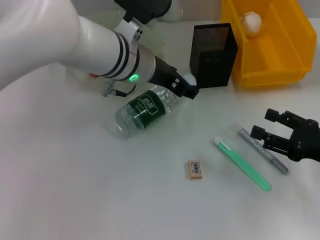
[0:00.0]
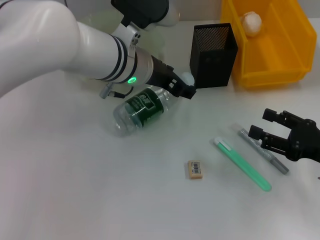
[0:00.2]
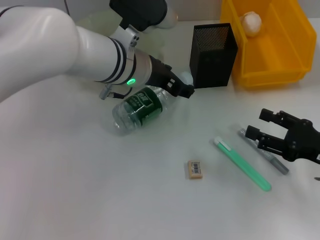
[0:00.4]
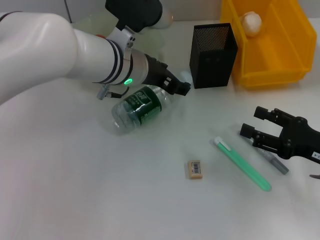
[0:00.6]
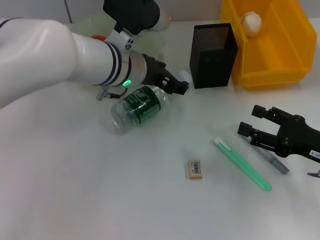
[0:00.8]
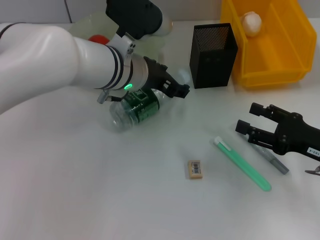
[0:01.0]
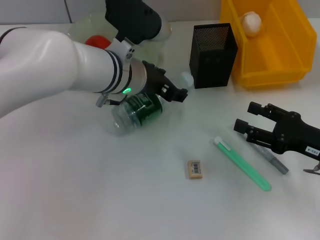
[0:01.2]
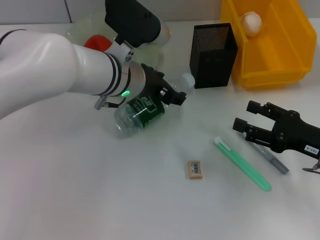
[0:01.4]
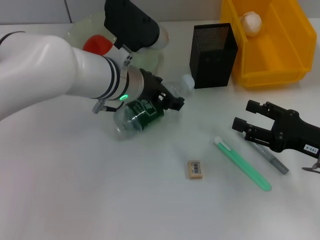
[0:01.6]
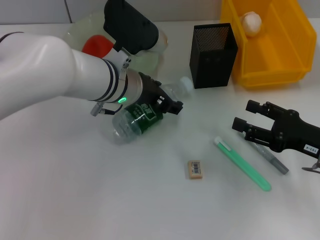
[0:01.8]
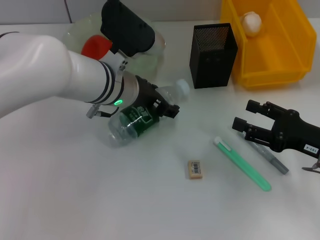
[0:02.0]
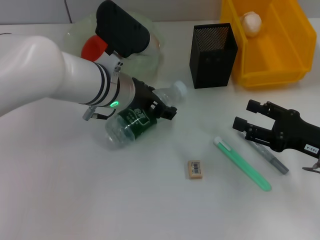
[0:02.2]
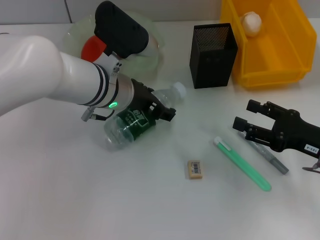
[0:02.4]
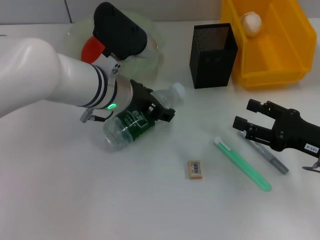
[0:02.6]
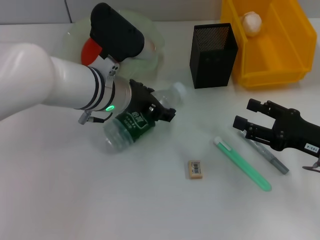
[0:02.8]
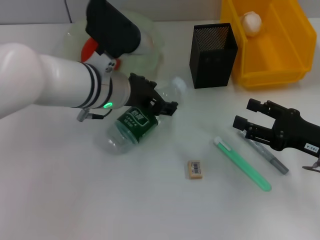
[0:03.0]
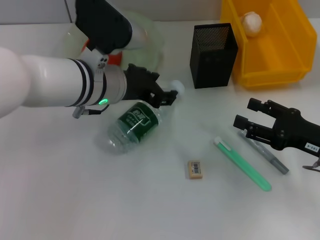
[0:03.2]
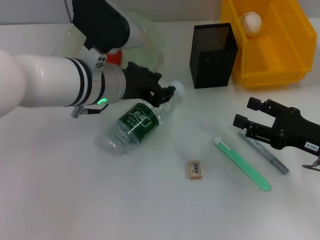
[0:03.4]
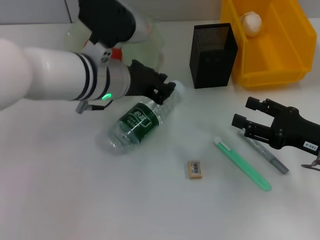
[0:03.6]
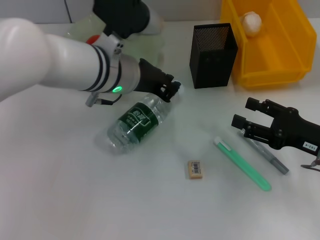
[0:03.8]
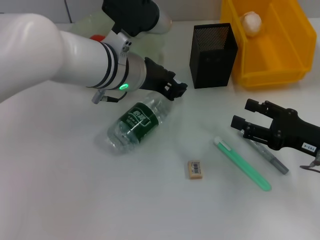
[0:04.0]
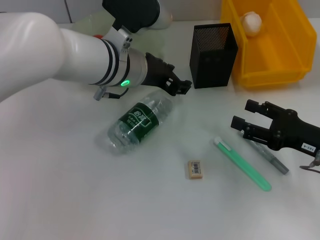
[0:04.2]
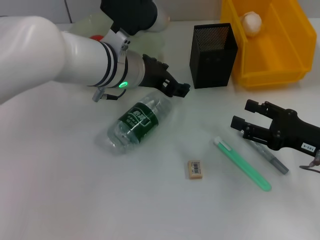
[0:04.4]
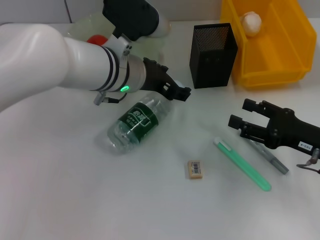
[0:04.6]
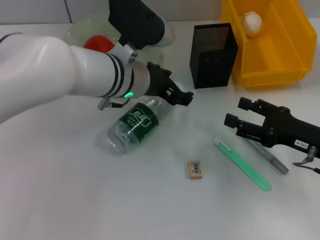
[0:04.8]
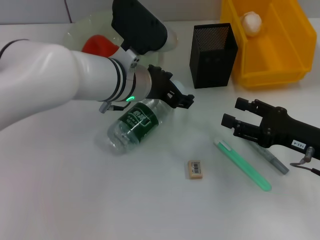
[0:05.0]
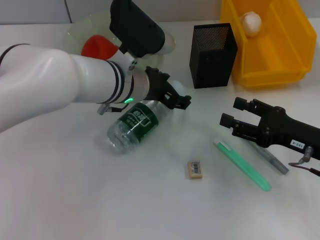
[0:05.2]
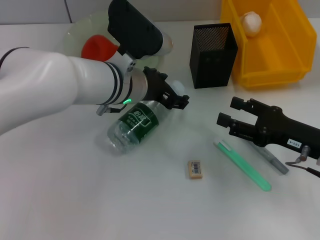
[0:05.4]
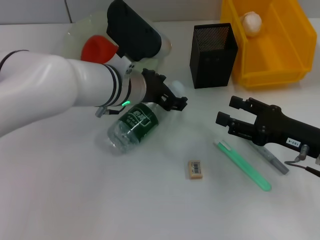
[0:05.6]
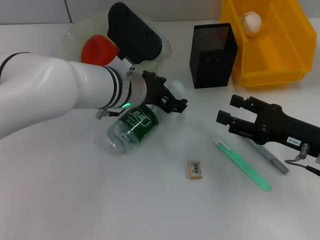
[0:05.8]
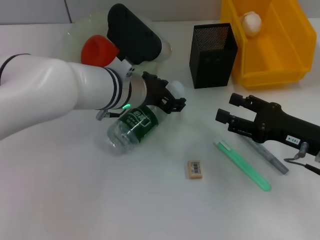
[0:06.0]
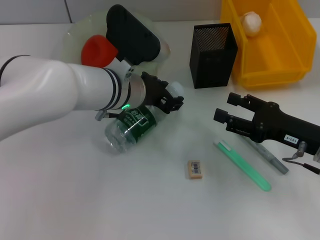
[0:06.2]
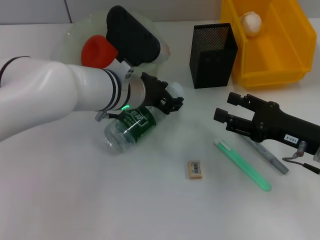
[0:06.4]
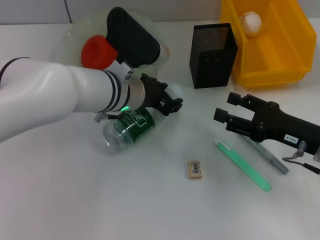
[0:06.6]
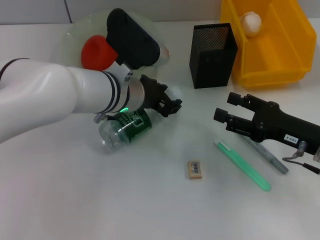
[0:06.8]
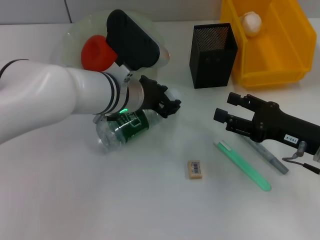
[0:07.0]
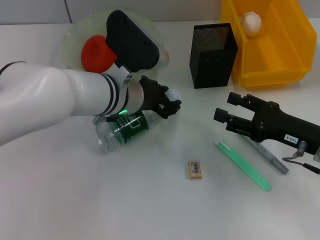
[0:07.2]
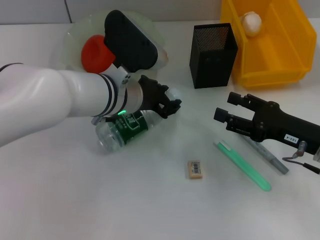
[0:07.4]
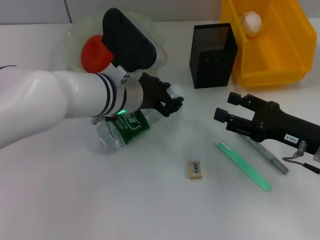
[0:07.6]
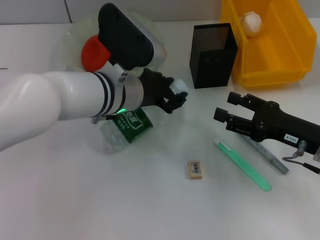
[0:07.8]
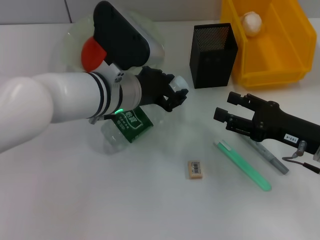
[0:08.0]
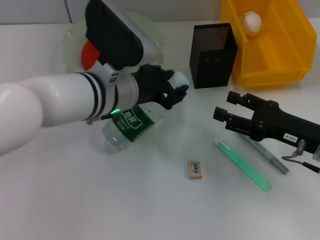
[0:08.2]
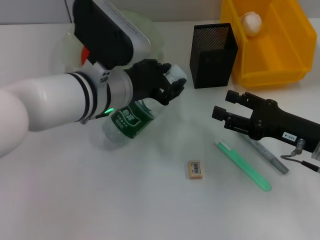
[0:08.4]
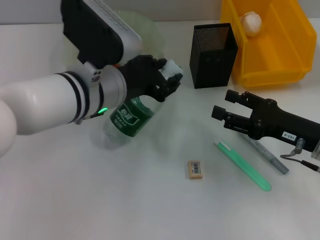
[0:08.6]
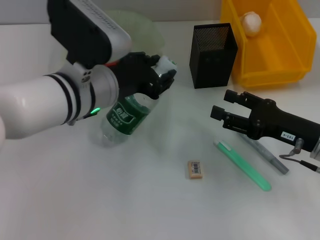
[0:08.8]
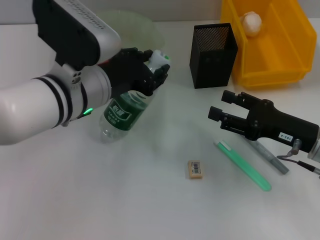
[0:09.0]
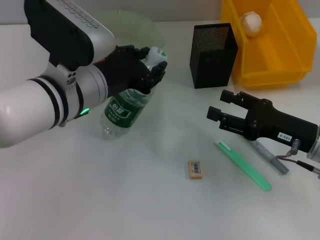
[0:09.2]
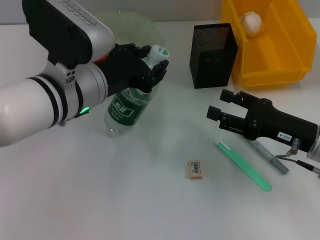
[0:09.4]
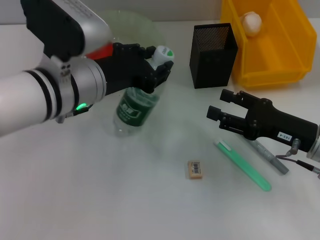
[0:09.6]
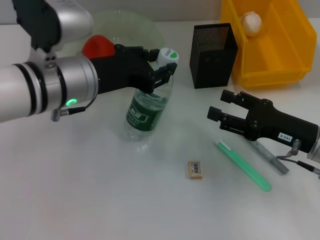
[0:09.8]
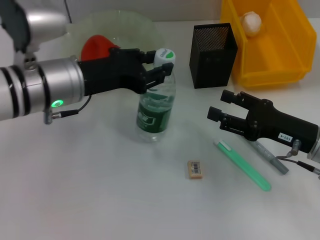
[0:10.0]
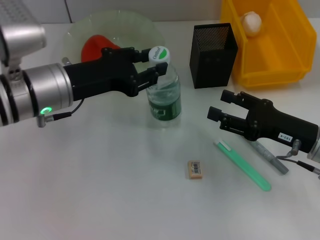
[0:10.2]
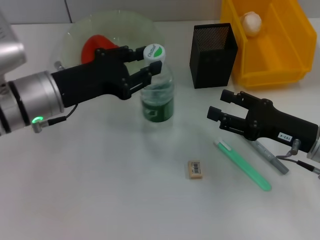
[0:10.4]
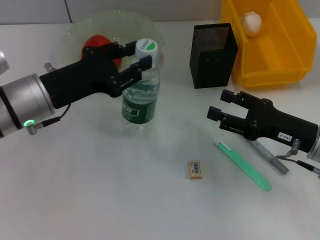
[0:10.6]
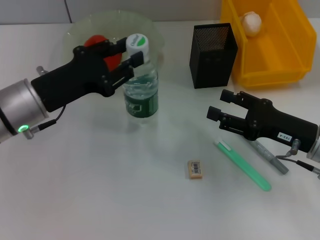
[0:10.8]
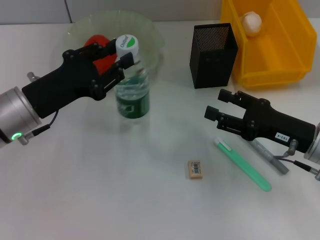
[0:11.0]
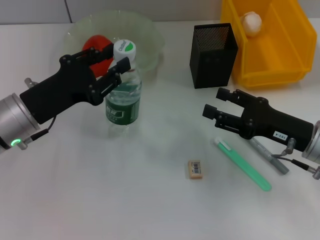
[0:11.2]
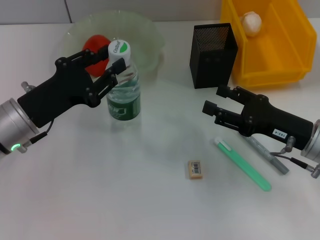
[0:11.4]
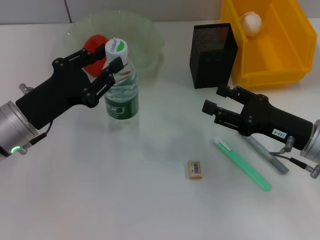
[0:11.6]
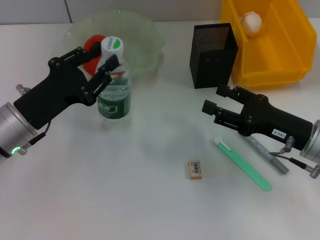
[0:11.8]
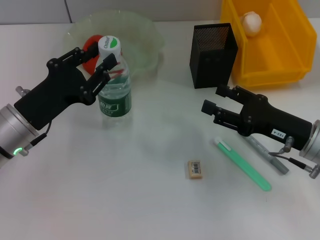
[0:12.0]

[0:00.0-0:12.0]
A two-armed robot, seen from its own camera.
Step, 0:00.0 to 0:06.4: Grab the water bottle with the left hand.
0:00.0 to 0:03.0: The grippers make only small movements.
0:03.0 to 0:04.4: The left gripper closes, then reopens.
0:04.4 to 0:06.0: The grippers stay close to where they were, moving slightly.
0:06.0 to 0:07.6: The left gripper closes up.
0:07.6 to 0:09.0: The left gripper changes place by approximately 5 cm.
0:09.0 to 0:10.4: The left gripper shifts approximately 5 cm to the left.
0:10.4 to 0:12.0: The left gripper travels downward by about 5 cm.

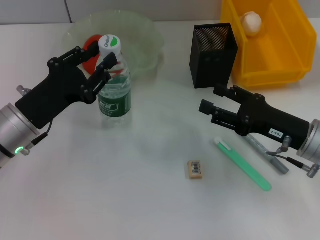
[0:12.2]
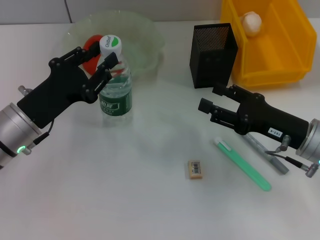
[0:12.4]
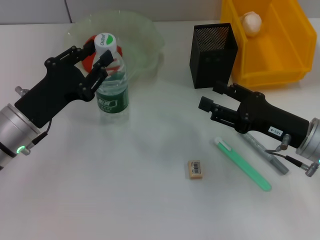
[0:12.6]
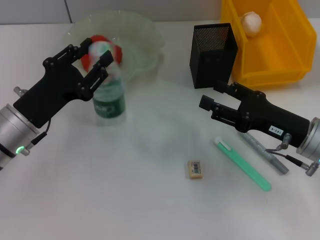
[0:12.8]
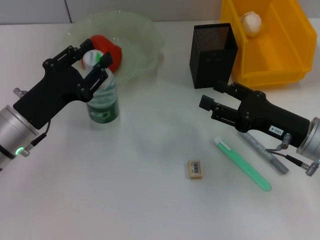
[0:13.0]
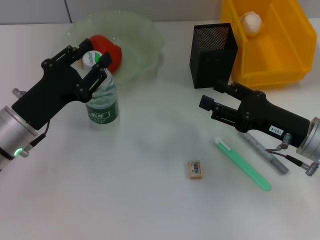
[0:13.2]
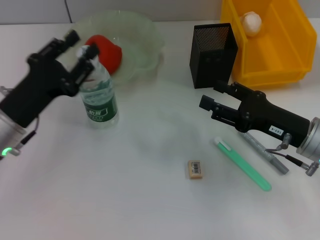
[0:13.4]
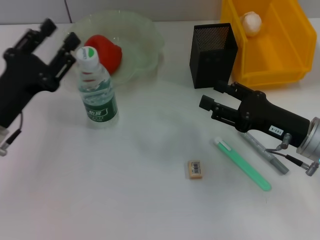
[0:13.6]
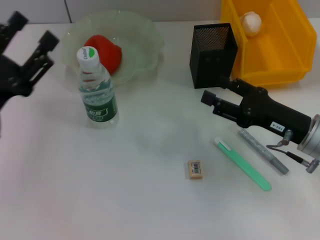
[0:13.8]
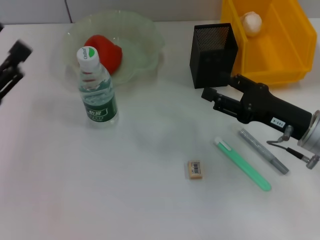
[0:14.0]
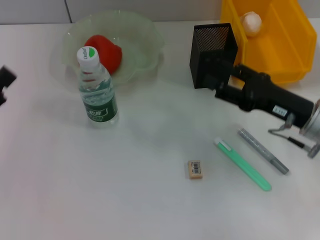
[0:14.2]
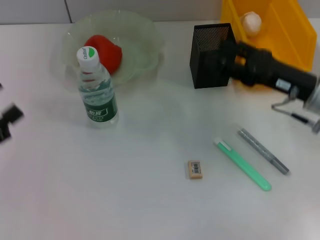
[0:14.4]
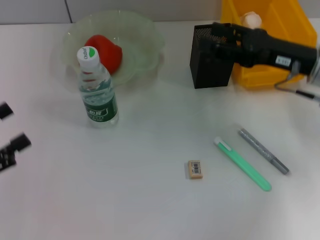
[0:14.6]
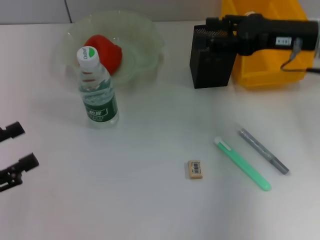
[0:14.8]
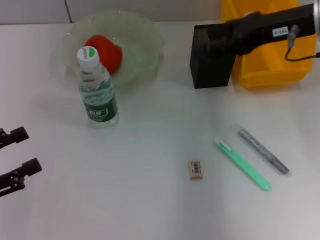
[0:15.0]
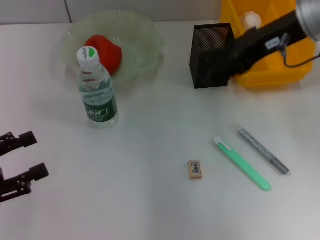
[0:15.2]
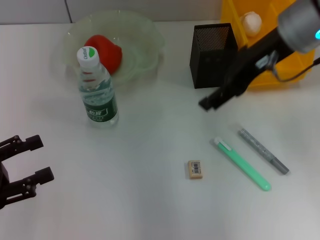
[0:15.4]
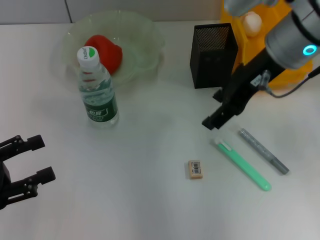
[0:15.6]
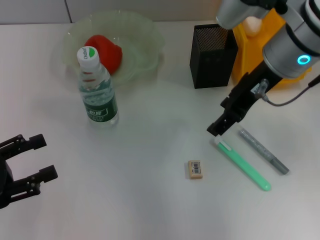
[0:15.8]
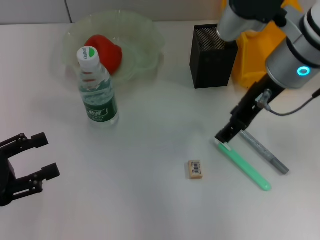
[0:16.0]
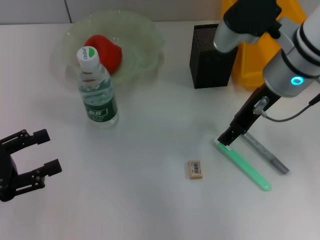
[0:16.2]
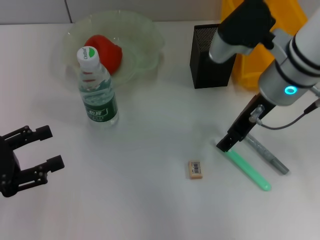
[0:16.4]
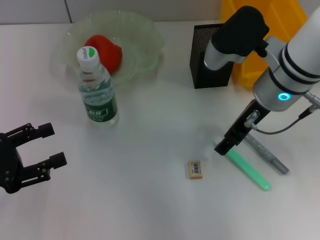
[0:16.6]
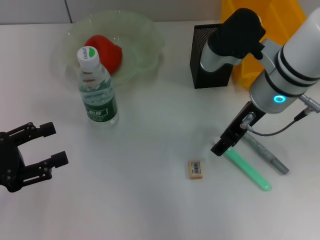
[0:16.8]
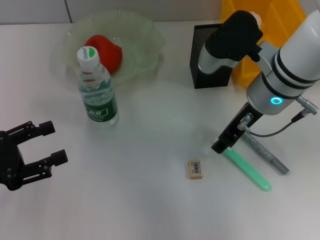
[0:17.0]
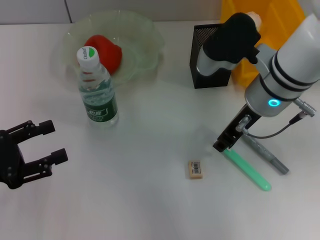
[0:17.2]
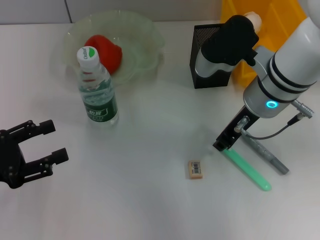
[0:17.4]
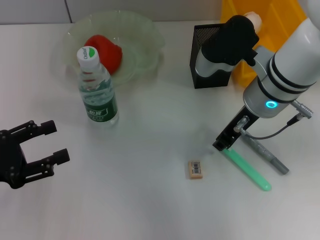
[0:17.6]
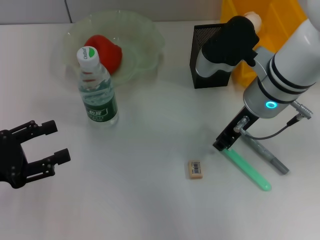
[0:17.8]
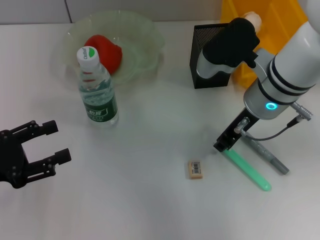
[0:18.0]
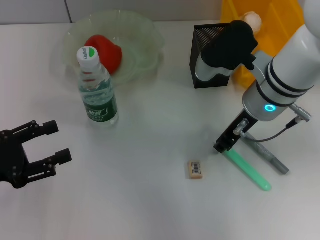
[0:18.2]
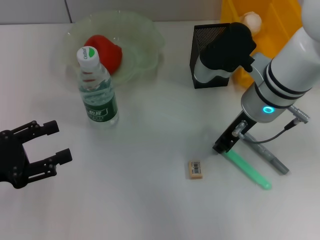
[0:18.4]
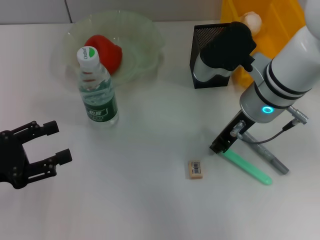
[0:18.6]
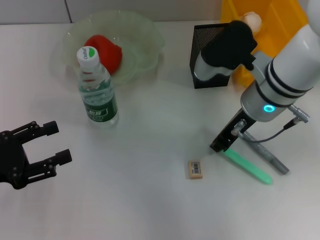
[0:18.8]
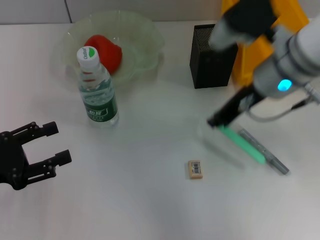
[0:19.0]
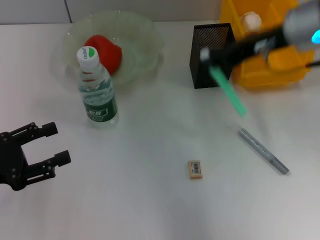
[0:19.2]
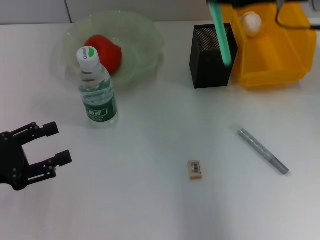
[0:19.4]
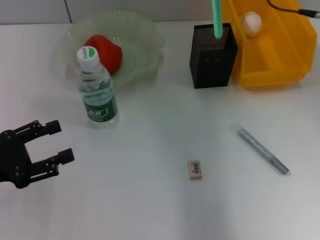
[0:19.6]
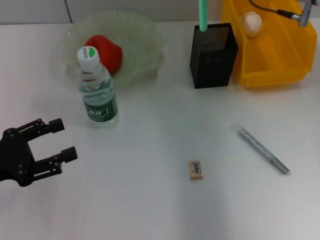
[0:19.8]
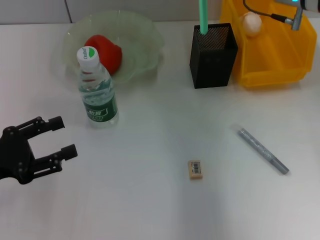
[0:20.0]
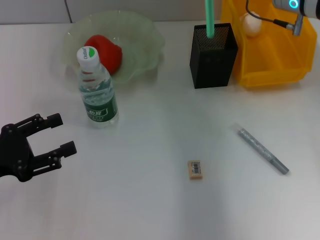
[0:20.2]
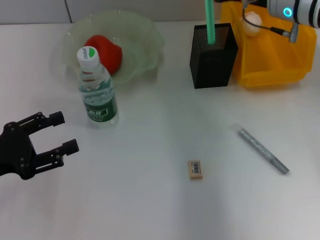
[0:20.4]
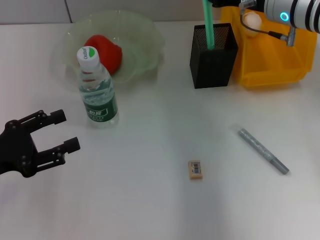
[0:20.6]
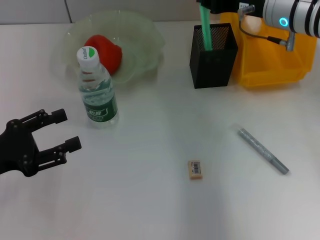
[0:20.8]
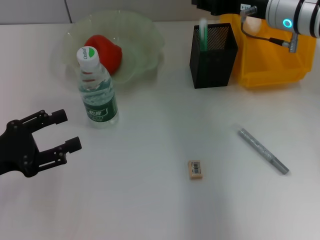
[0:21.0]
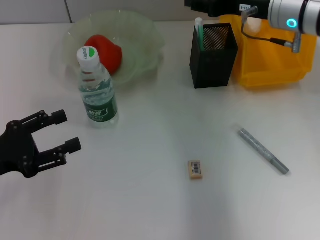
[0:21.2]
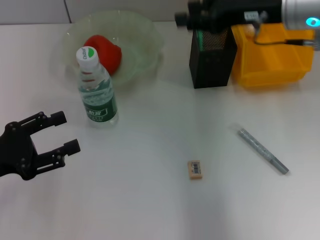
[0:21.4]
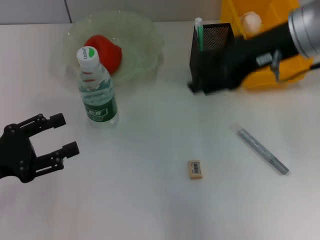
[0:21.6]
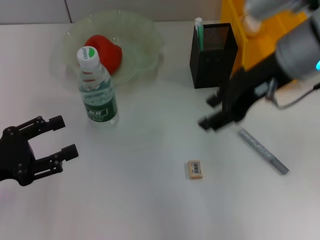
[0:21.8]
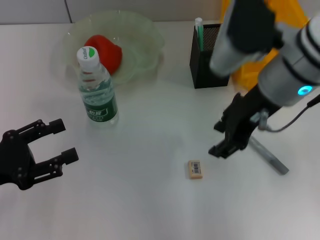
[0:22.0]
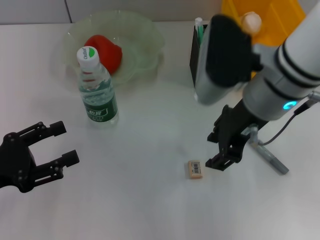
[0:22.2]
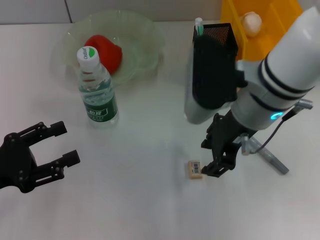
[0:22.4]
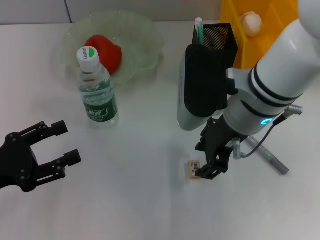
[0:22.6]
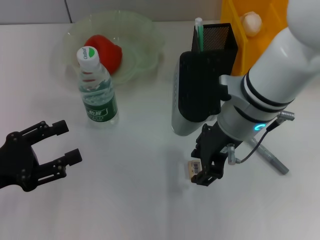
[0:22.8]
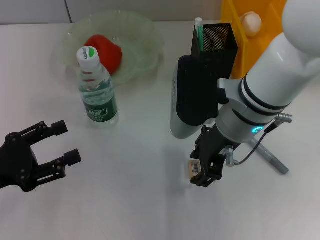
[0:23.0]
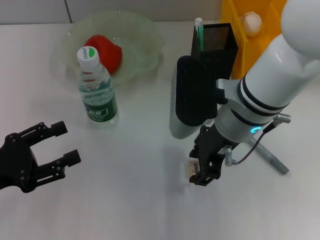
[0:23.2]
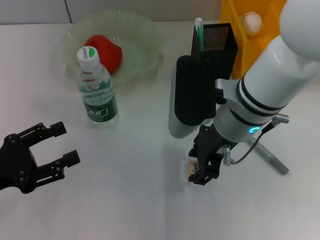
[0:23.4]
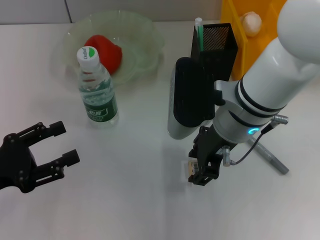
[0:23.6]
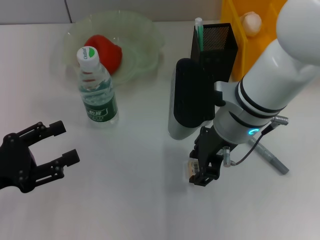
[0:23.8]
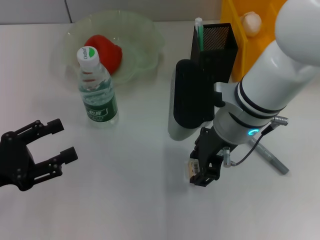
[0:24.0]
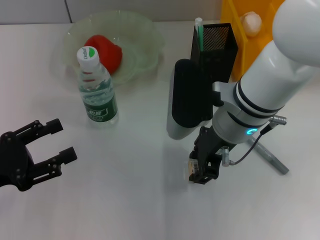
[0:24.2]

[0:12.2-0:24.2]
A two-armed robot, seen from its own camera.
Step, 0:13.8 to 0:18.2: Grab the blue utility knife with the right hand.
Step, 0:18.6 to 0:21.0: Place the blue utility knife into the pen holder with the right hand.
0:12.2 to 0:13.8: The left gripper moves roughly 5 cm, and opens its fingers.
0:13.8 to 0:15.2: The right gripper is displaced upward and forward by about 20 cm. The left gripper shifts roughly 10 cm to the left and backward.
0:15.2 to 0:16.6: The right gripper shifts roughly 10 cm downward.
0:16.6 to 0:18.2: The right gripper closes up.
0:18.2 to 0:19.8: The right gripper goes roughly 10 cm forward, upward and to the right.
0:19.8 to 0:21.2: There are only small adjustments of the grippers.
0:21.2 to 0:22.6: The right gripper goes about 15 cm backward and to the left.
0:22.6 to 0:24.2: The grippers move only a little.
